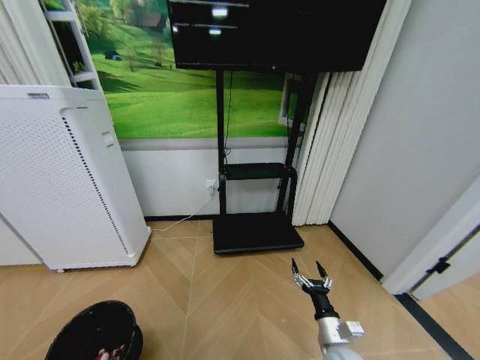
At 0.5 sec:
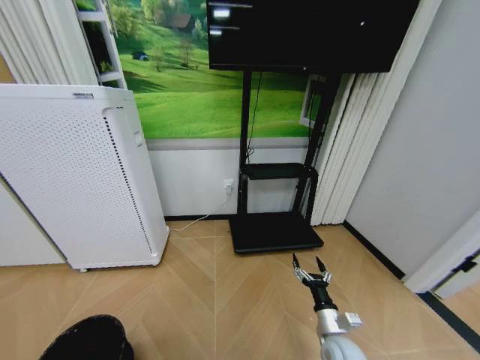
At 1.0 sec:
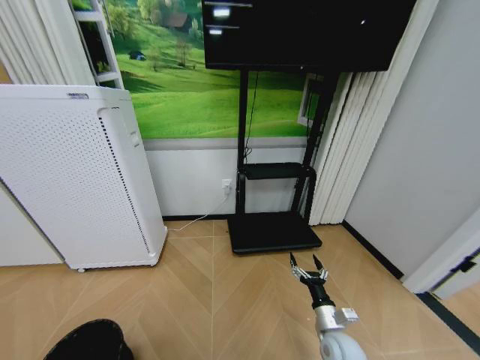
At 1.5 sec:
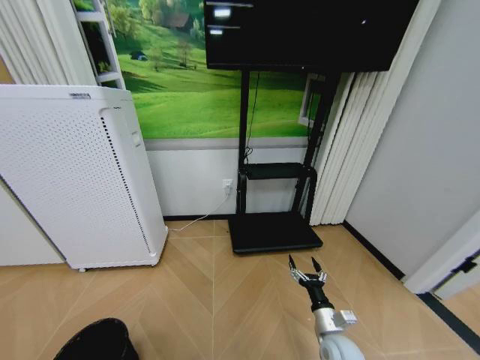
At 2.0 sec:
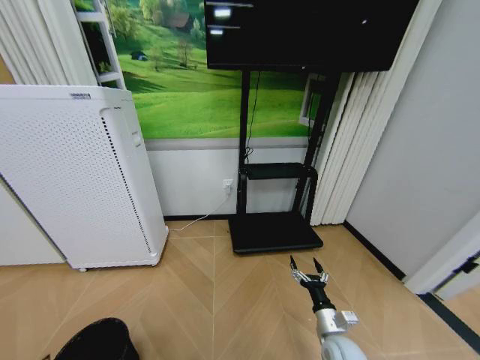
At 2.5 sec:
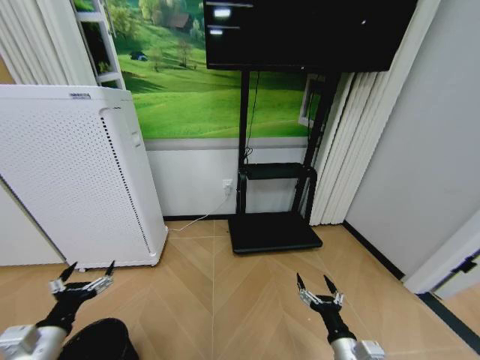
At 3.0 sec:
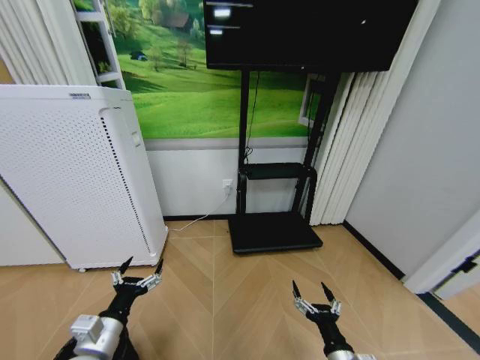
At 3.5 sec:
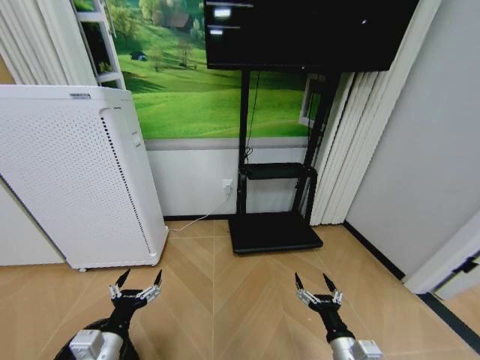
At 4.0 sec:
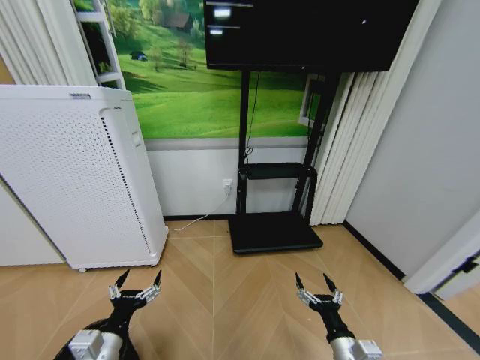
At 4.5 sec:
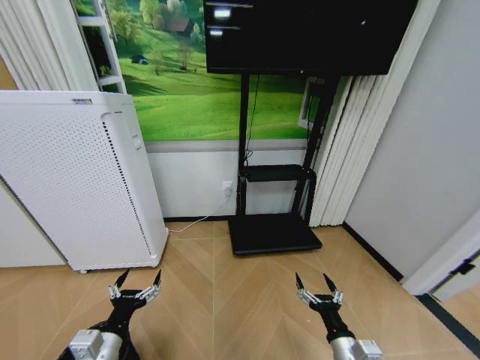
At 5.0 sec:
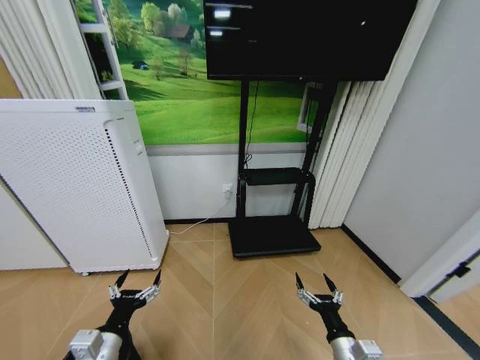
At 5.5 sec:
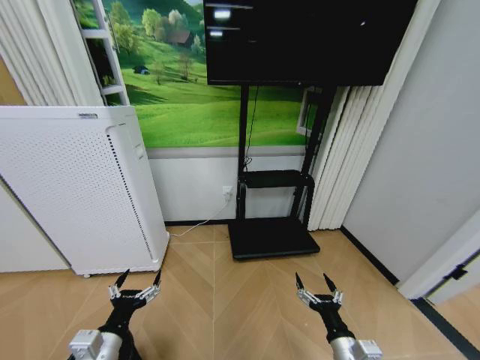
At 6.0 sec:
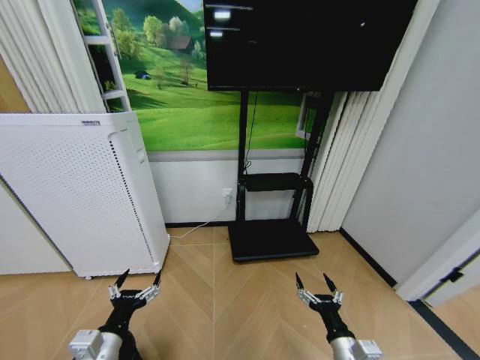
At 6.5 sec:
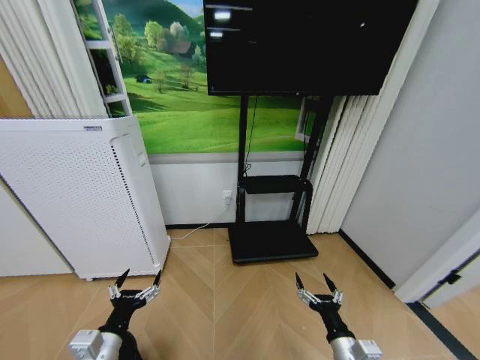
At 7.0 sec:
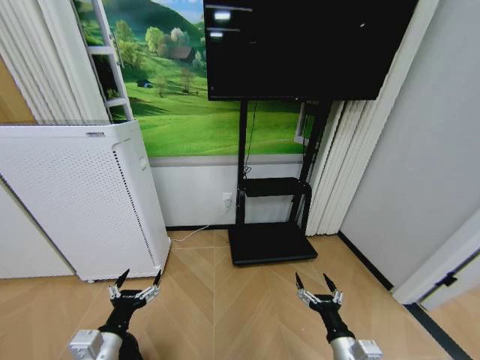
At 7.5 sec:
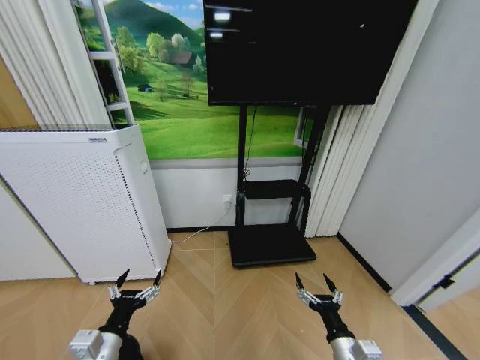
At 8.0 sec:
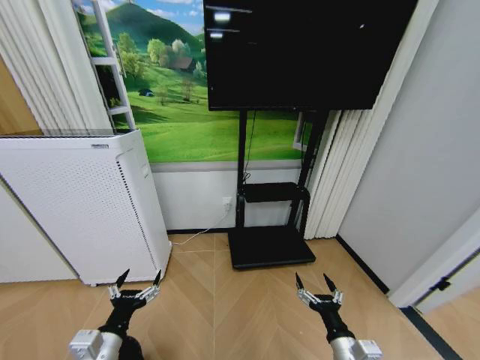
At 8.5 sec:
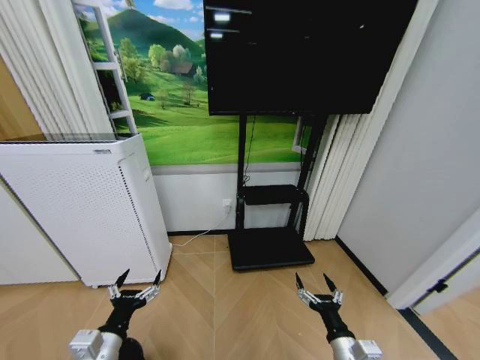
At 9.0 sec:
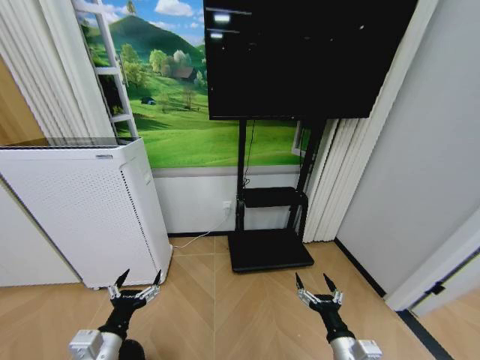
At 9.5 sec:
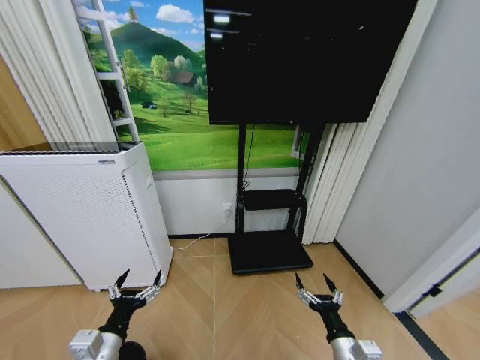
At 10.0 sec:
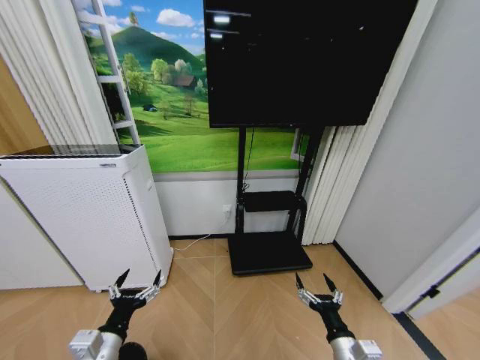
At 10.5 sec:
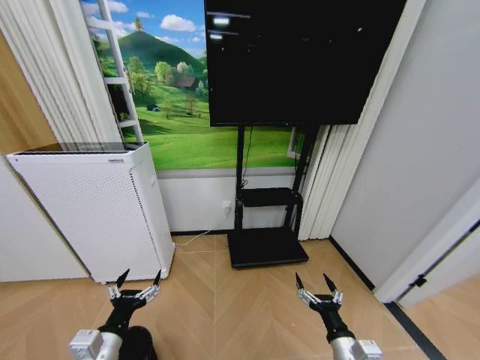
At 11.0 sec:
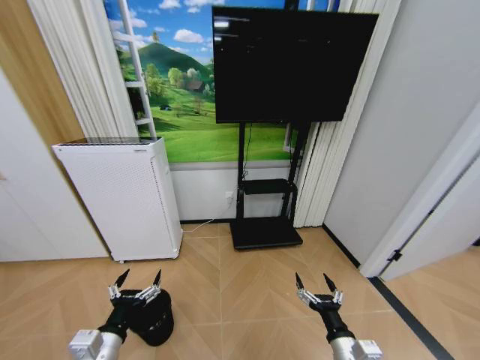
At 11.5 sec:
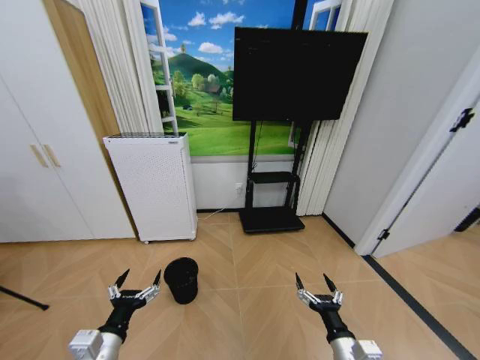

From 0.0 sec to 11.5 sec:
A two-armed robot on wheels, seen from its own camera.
Task of the whole recording: Pick up the trash bin and place the garbage on the floor into it.
From 0.0 sec to 2.0 sec: The left gripper opens.
From 2.0 sec to 4.0 sec: The right gripper goes about 10 cm backward and upward; the left gripper goes about 20 cm to the right and forward.
From 4.0 sec to 9.5 sec: The two grippers keep their place.

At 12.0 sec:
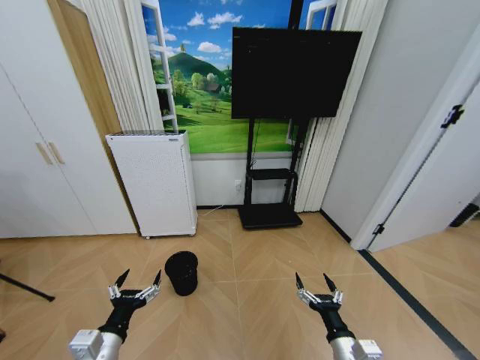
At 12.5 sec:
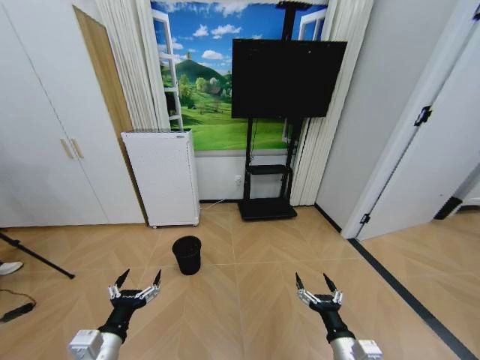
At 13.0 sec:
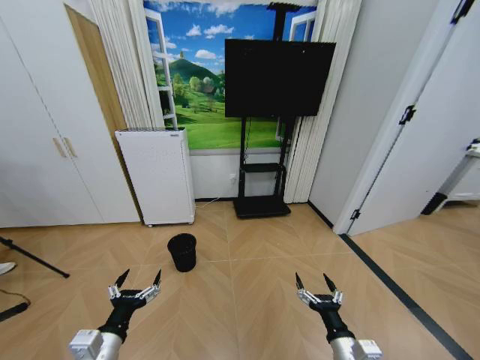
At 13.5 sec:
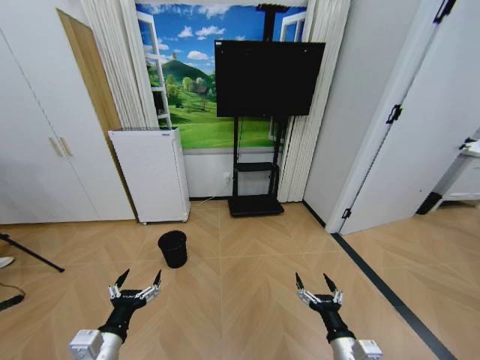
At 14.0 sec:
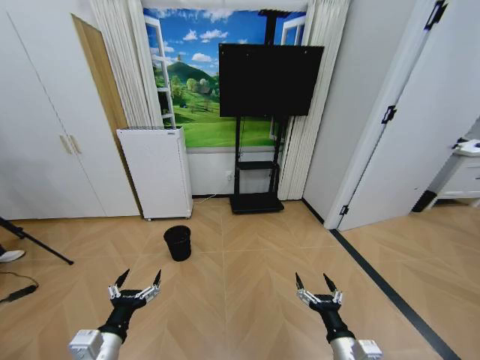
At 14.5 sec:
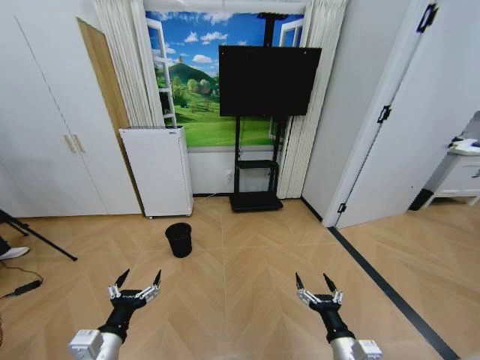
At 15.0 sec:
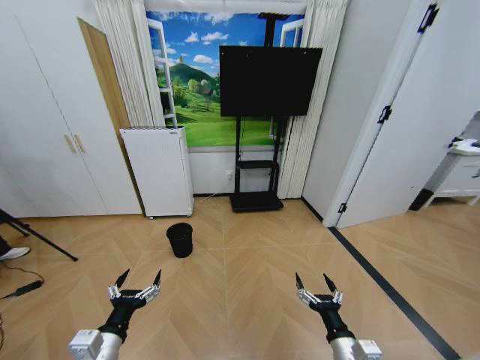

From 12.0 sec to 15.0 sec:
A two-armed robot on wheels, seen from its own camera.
Task of the whole recording: Pick up the trash bin and place the garbage on the floor into it.
From 13.5 sec to 15.0 sec: Both grippers stay put.

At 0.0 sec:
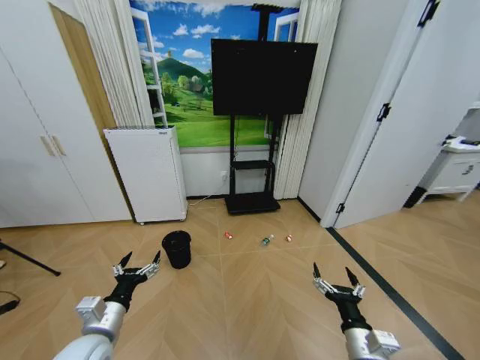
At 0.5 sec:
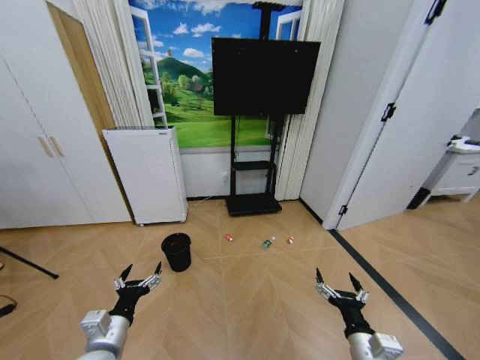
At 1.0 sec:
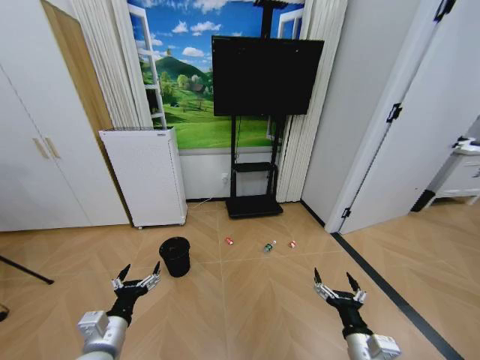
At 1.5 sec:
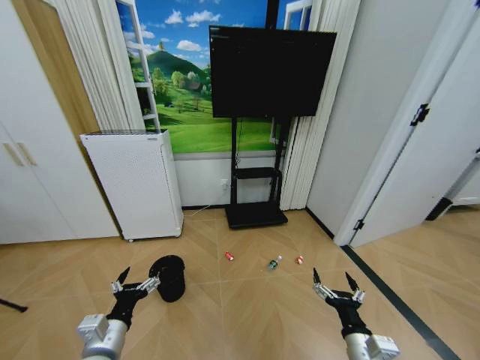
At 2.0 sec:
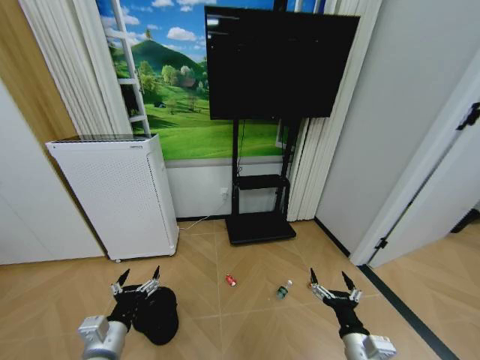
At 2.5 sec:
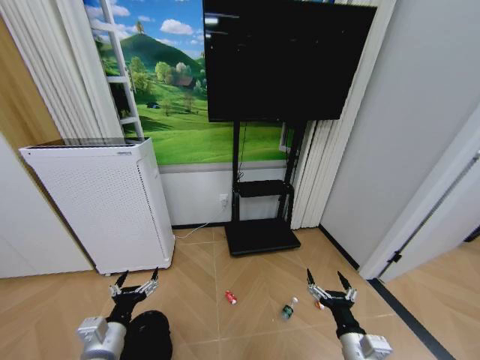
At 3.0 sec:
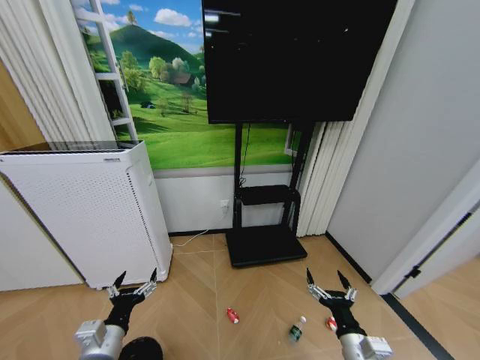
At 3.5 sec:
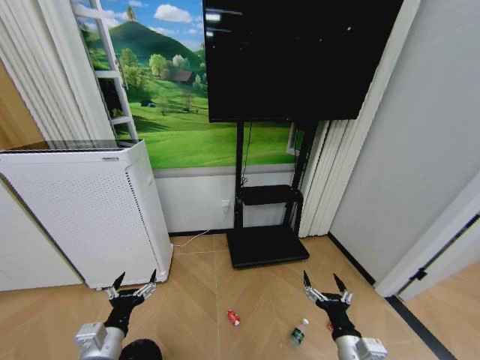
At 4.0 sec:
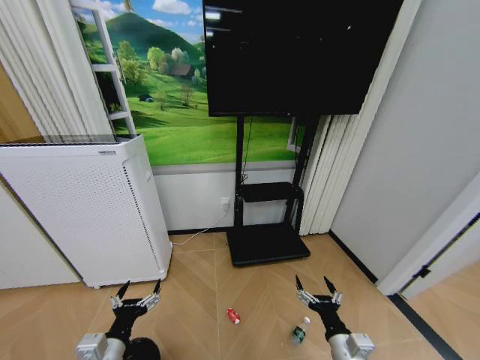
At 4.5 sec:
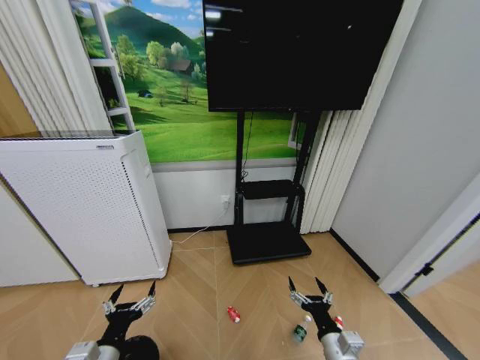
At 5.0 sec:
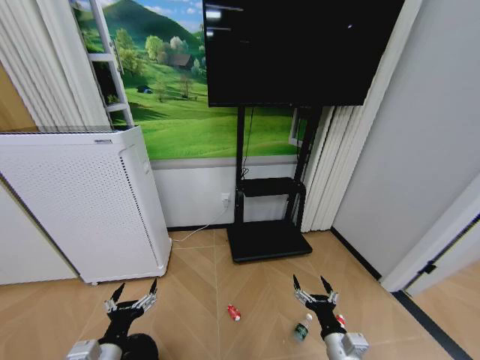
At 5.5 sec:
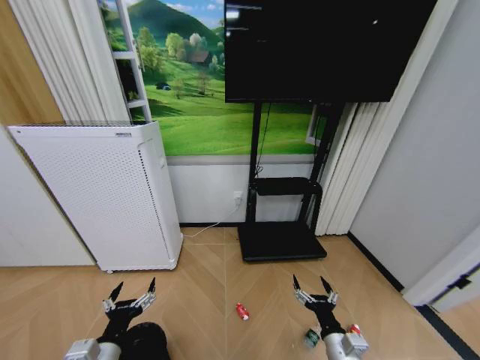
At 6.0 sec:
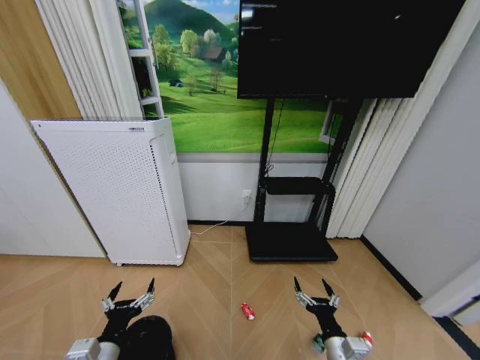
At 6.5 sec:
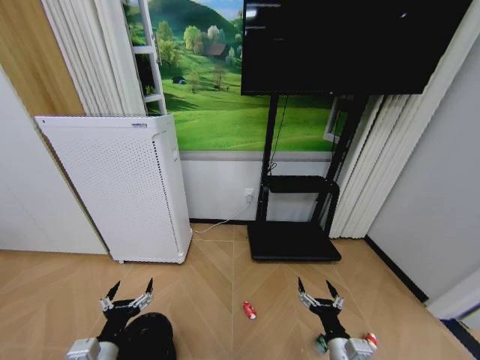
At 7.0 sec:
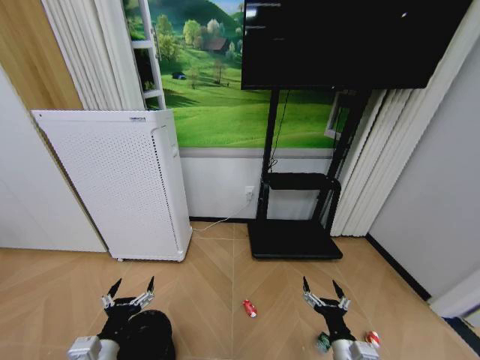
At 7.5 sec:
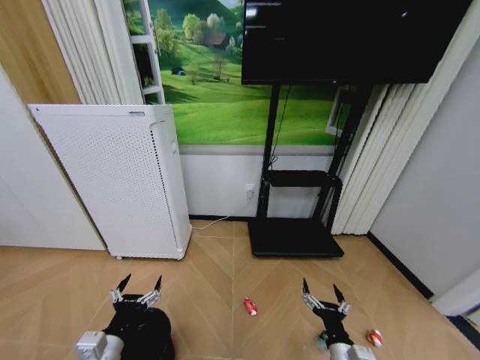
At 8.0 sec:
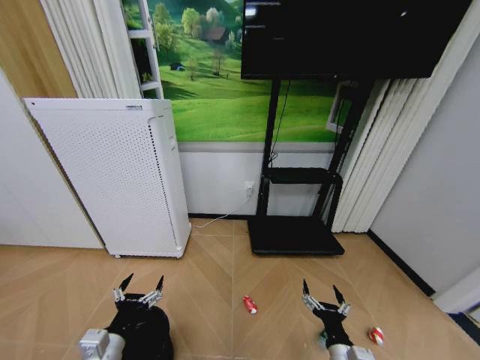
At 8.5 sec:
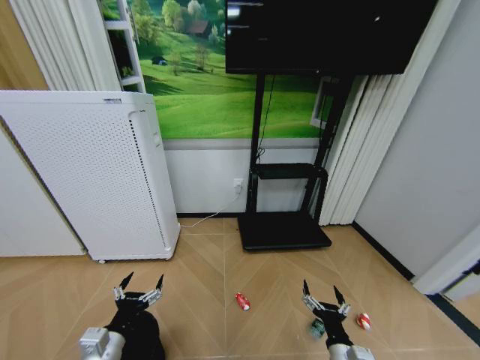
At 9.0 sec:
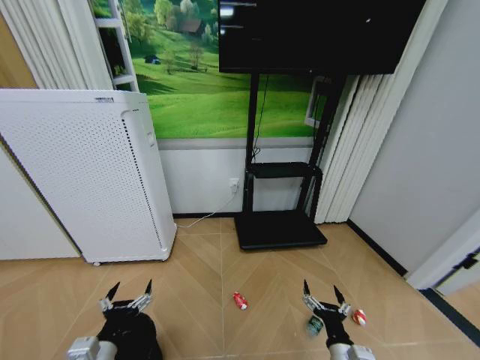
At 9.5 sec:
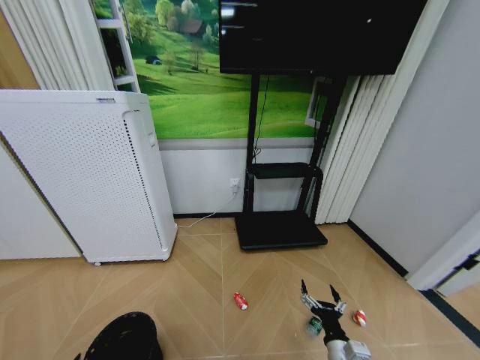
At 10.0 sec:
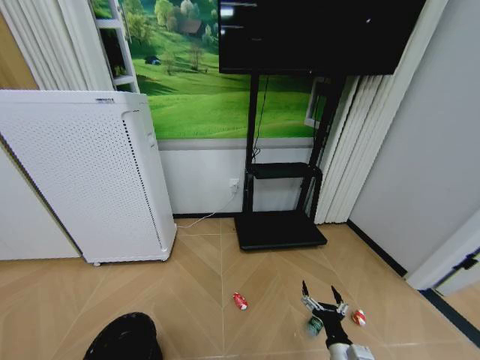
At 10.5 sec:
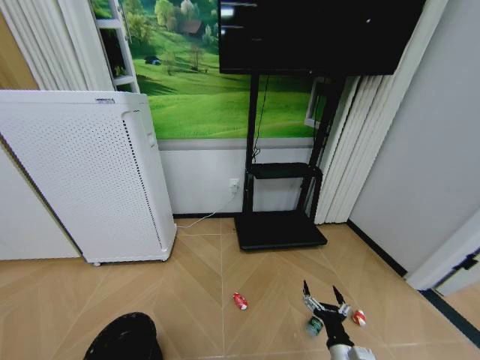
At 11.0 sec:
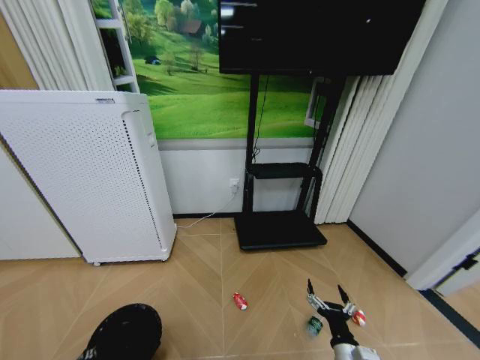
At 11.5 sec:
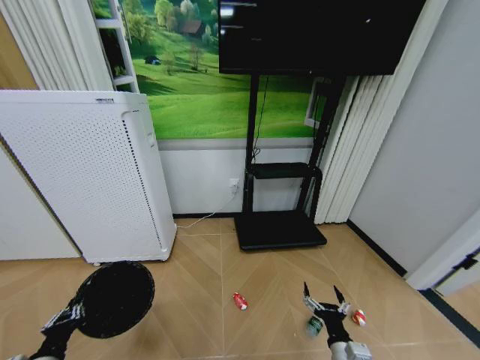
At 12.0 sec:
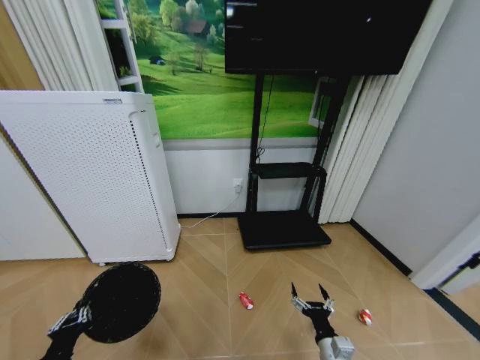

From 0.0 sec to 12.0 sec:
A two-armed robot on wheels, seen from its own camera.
Task of the whole recording: Pick up the trash bin and place the garbage on the floor into it.
From 8.0 sec to 10.0 sec: The left gripper travels to the left, backward and downward by about 15 cm.
From 10.0 sec to 12.0 sec: The left gripper moves upward, about 5 cm, and closes its fingers.
